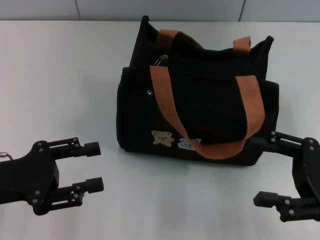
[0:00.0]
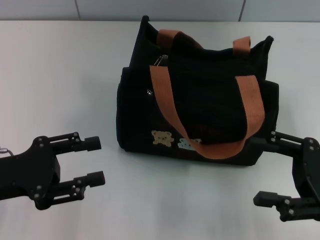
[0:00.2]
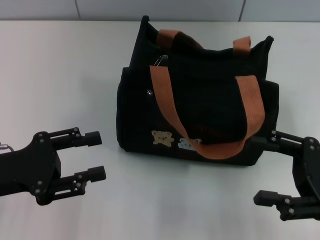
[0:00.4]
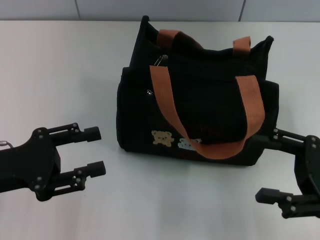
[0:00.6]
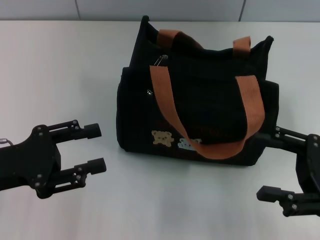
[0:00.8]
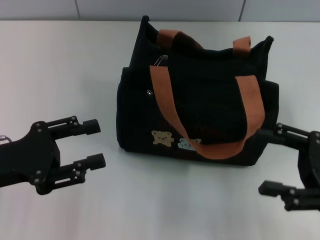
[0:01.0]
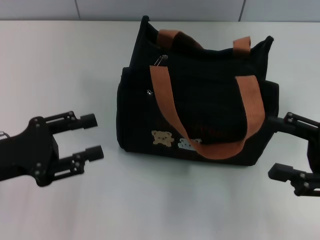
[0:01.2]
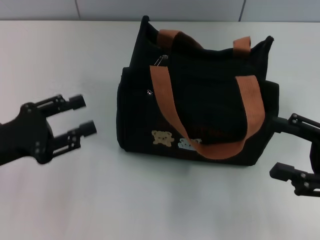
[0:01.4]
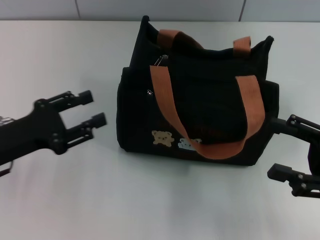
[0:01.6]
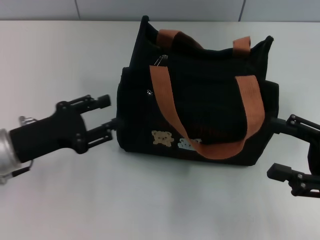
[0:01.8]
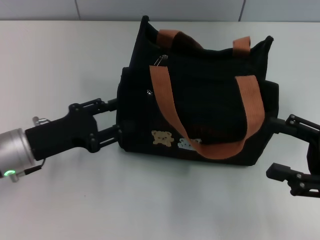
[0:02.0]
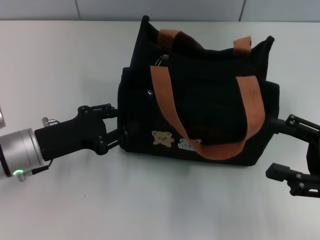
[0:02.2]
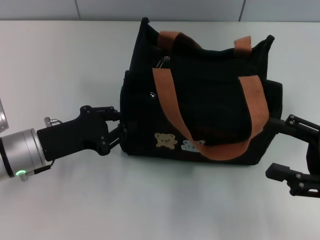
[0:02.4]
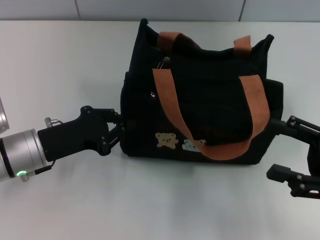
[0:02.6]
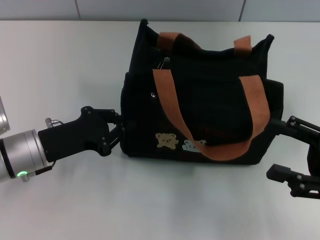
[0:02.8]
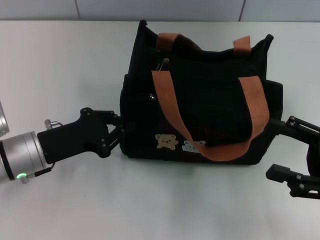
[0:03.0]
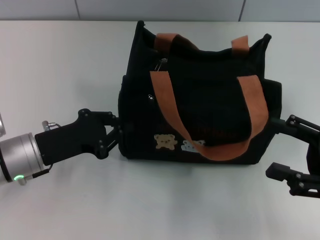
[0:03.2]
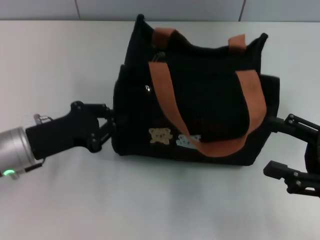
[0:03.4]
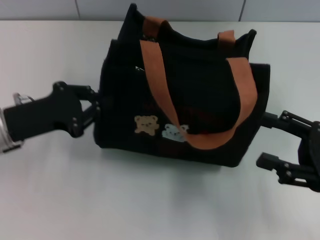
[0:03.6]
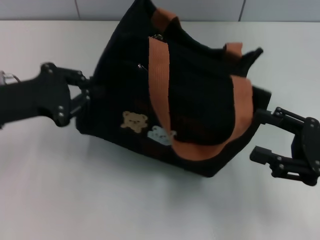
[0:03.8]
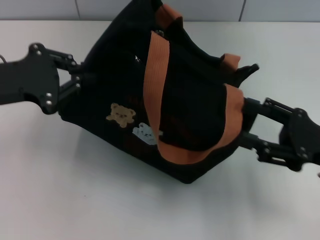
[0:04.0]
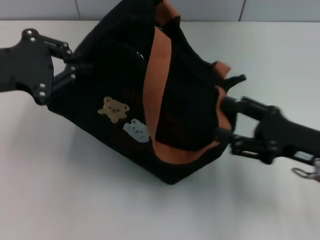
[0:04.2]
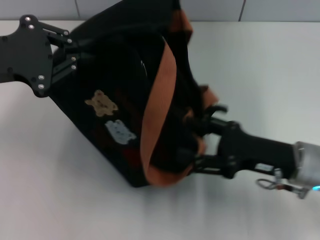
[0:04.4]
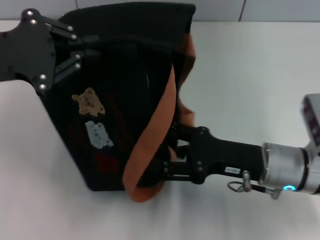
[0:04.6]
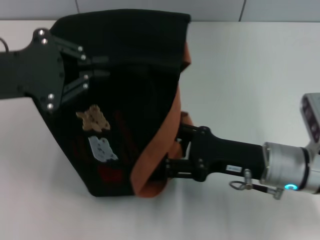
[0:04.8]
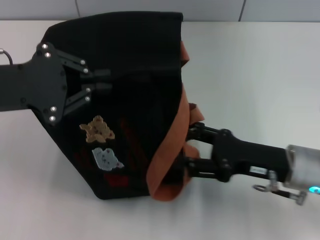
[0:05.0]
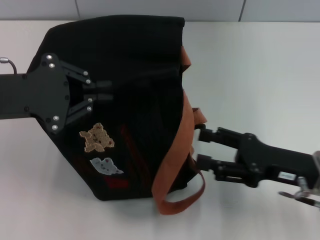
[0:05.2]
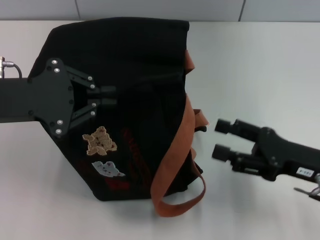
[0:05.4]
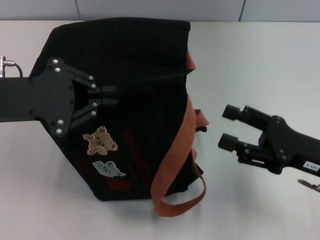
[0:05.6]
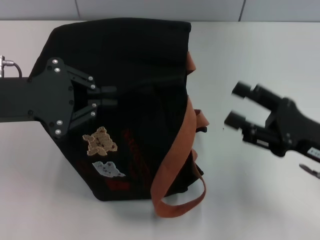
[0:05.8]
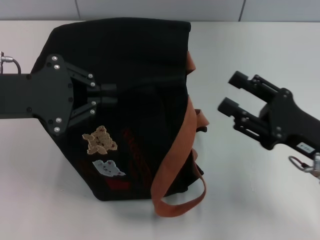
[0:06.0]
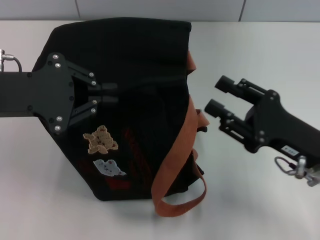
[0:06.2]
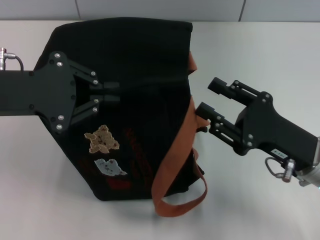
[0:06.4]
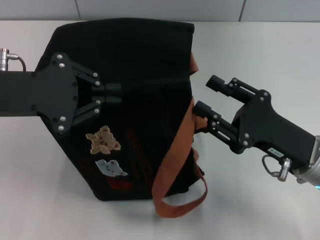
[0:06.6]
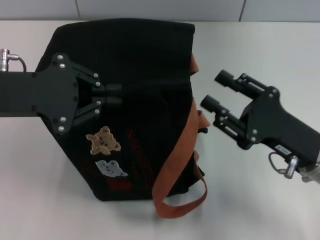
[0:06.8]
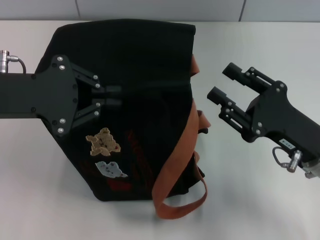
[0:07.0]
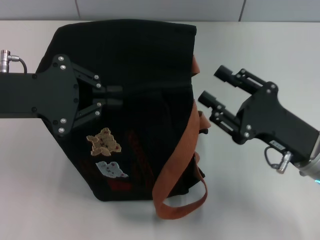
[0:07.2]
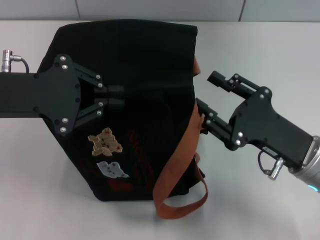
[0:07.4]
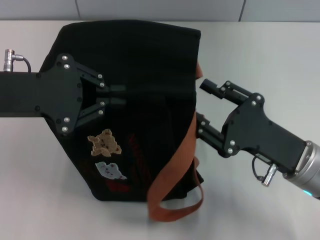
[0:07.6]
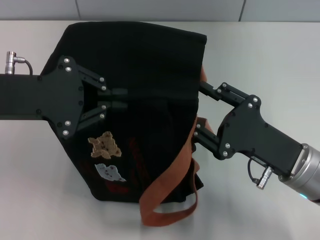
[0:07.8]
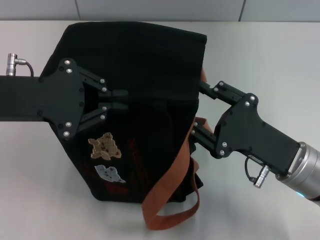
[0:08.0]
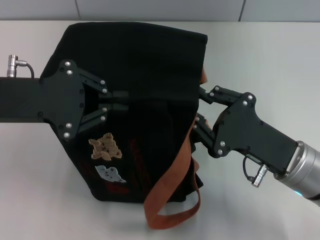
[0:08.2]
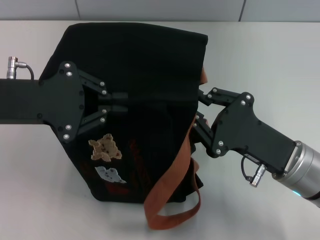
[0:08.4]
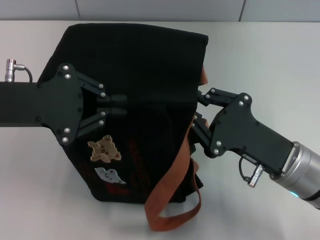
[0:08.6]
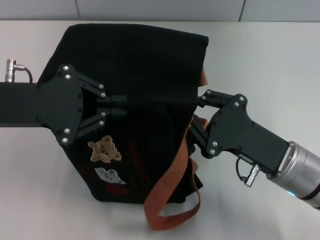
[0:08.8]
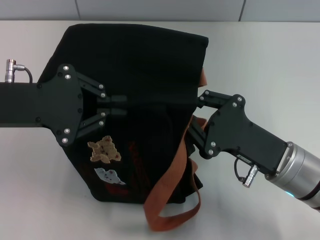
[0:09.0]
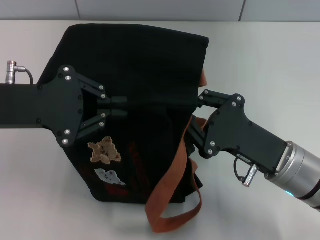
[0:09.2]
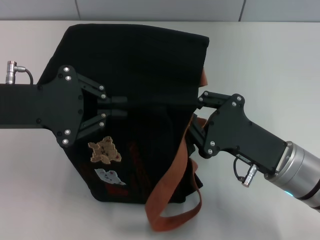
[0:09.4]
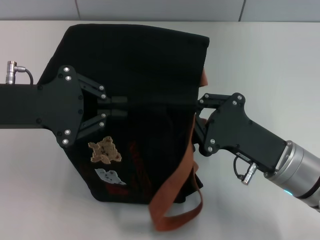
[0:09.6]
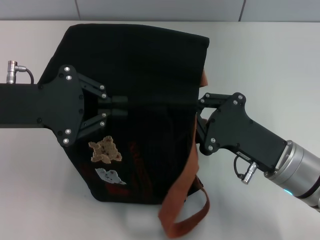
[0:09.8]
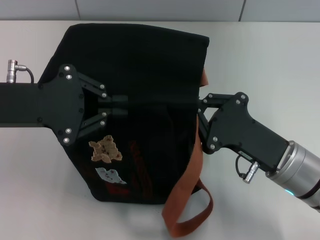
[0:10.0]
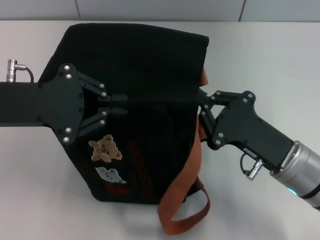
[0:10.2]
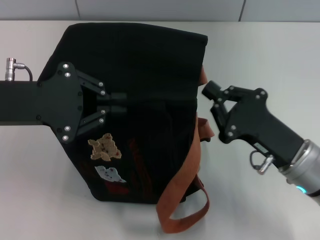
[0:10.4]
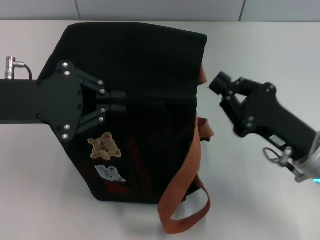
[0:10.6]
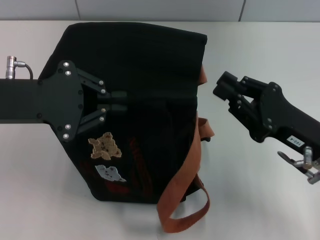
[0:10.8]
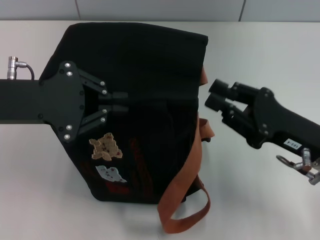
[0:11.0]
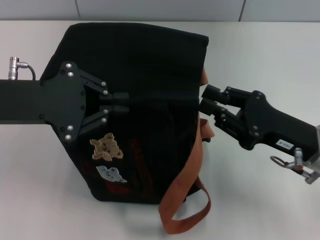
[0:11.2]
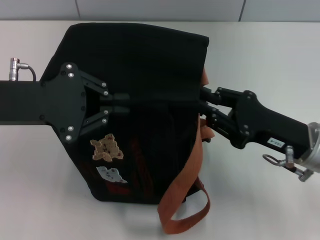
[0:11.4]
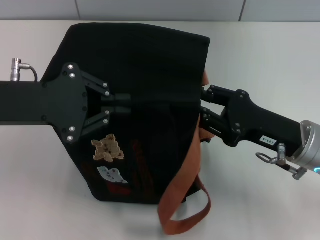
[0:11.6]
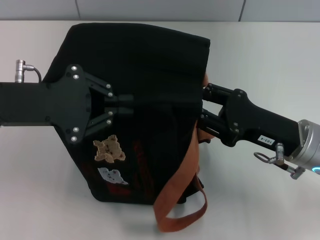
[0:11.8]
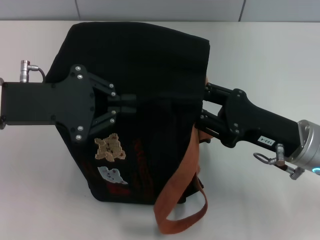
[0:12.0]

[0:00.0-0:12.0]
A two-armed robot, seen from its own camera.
0:00.0 to 0:01.6: There are only small adjustments of the grippers.
0:01.6 to 0:03.0: The left gripper changes place by roughly 5 cm, and closes up.
0:03.0 to 0:04.4: The right gripper is displaced to the left by about 10 cm; the left gripper goes some 15 cm upward.
0:07.6 to 0:09.0: The right gripper closes its fingers.
0:09.0 to 0:10.4: The grippers stay close to where they were, moving slightly.
0:10.4 to 0:12.0: The right gripper opens its fingers.

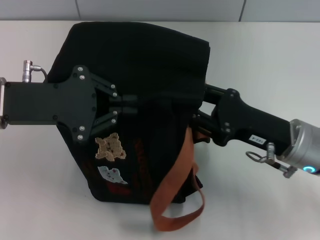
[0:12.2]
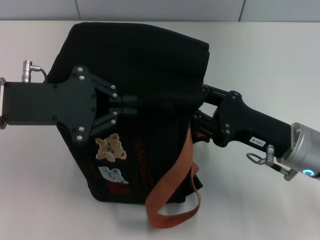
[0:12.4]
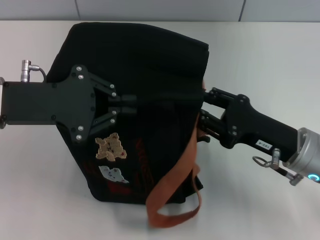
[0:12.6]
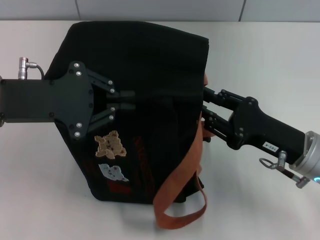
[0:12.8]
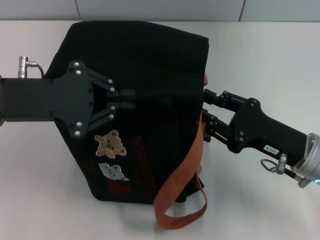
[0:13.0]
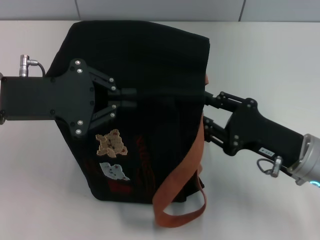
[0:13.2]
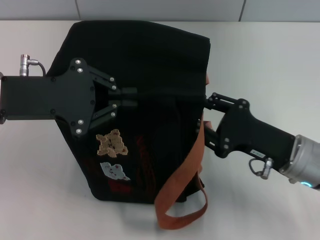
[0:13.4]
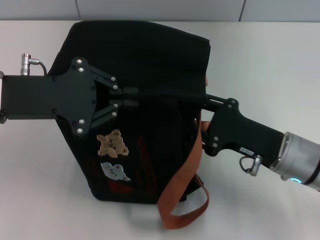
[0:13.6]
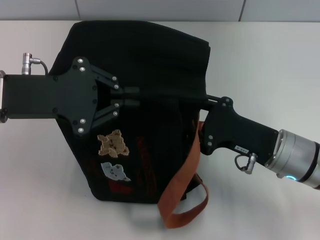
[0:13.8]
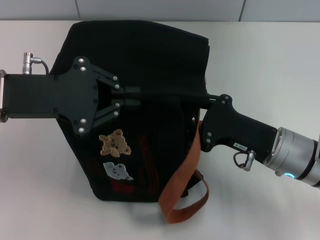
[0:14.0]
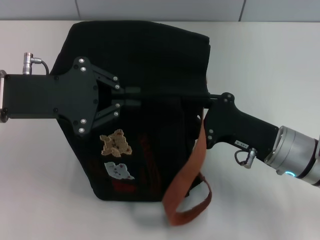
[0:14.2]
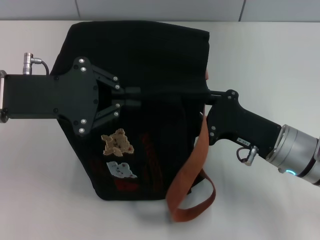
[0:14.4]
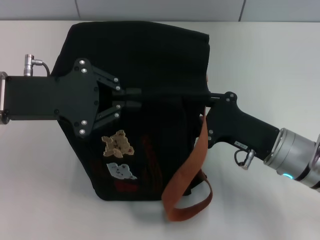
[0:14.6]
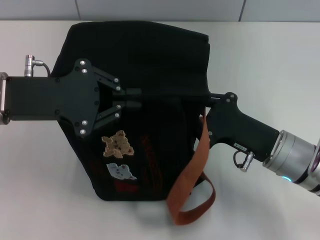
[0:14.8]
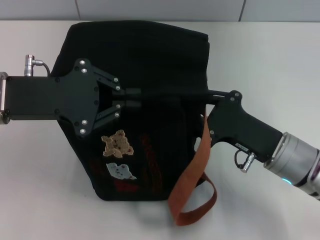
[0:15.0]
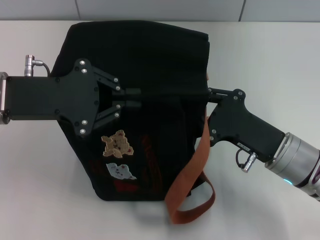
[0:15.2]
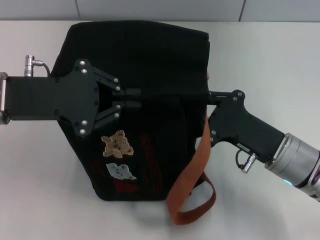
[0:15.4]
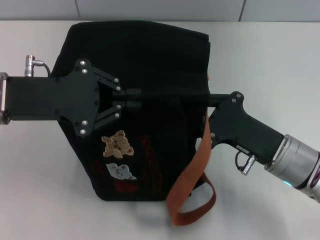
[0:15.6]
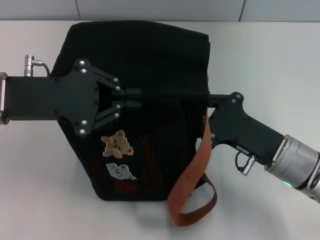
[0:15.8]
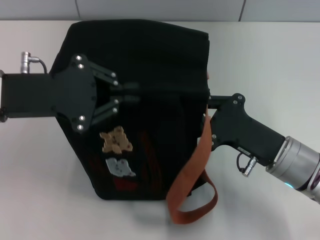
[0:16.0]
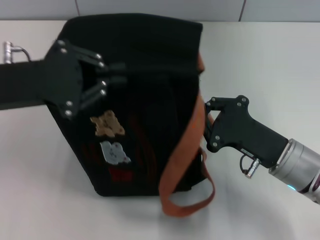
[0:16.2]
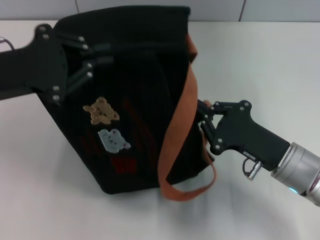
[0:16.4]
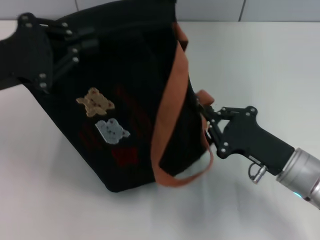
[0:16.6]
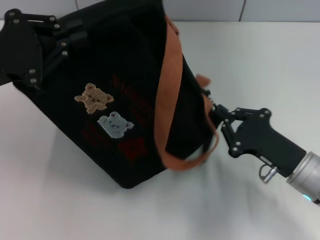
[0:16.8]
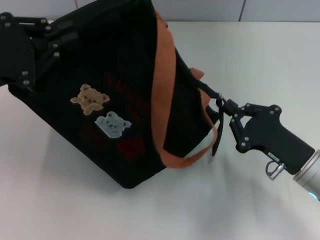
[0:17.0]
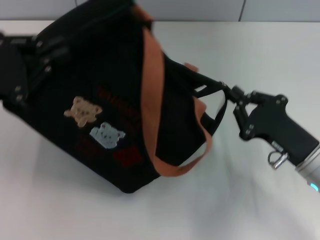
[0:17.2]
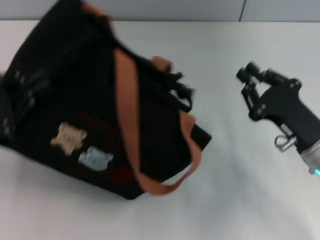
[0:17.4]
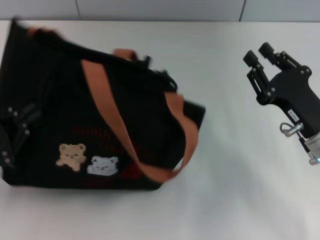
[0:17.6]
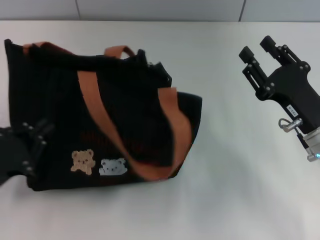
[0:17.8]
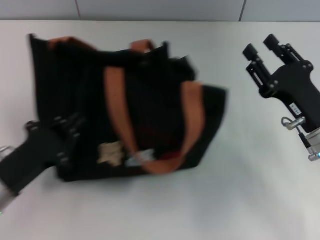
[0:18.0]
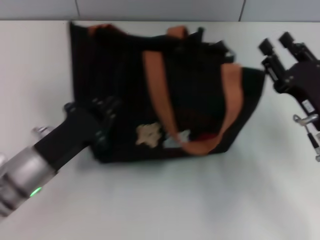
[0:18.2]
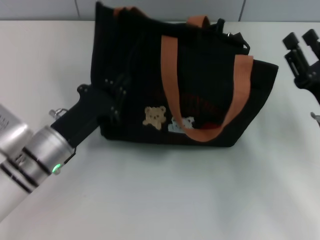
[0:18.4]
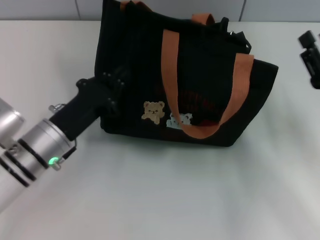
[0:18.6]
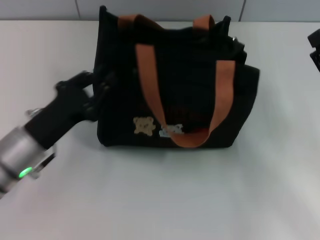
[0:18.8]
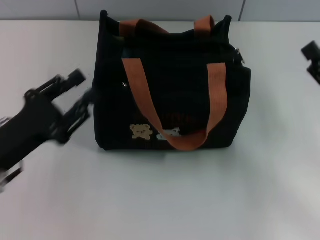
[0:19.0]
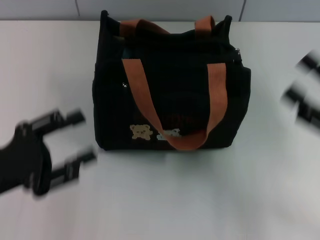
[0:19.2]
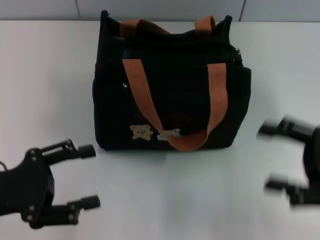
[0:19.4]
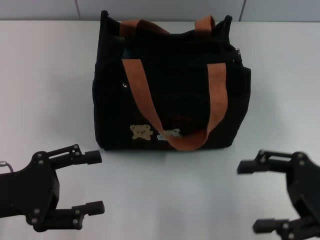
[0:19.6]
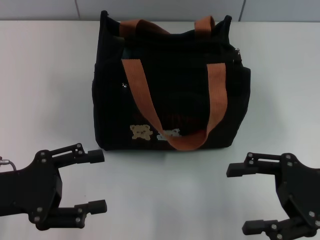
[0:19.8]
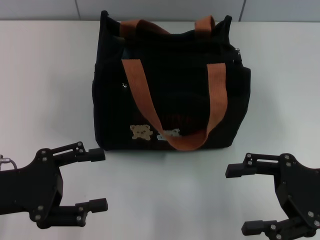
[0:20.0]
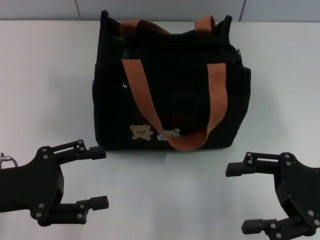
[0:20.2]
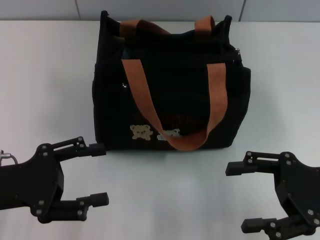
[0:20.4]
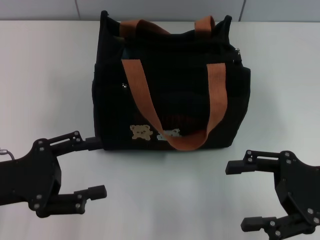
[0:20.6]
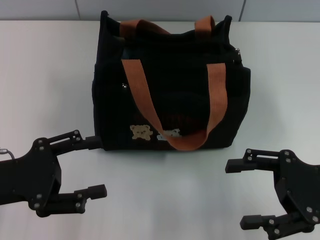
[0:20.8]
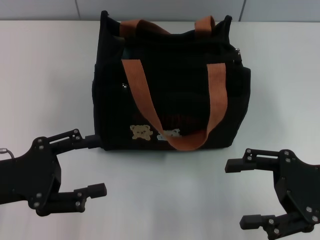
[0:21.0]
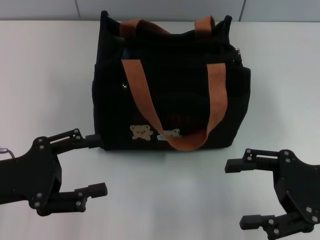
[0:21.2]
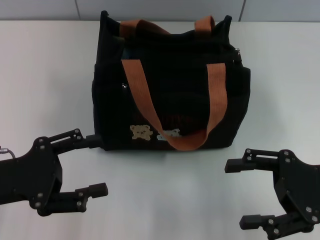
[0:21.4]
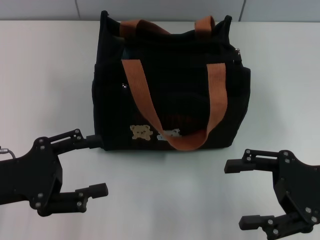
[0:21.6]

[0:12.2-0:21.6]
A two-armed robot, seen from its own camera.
Step, 0:12.2 to 0:17.4: Pull open the zipper with your right hand.
Step, 0:17.6 to 0:19.0: Grab the bag with your left hand.
0:12.2 to 0:13.8: There are only small adjustments of the grippers.
0:13.8 to 0:15.4: The right gripper closes its fingers.
0:15.4 to 0:17.0: The right gripper shifts by approximately 5 cm; the left gripper travels to the left by some 5 cm.
0:17.0 to 0:18.4: The right gripper opens up. The left gripper moves downward and to the right, approximately 15 cm.
0:18.4 to 0:20.0: The right gripper shifts by about 5 cm, while the left gripper moves to the left, backward and upward, some 15 cm, and opens.
0:20.0 to 0:21.6: Both grippers stay about where they are.

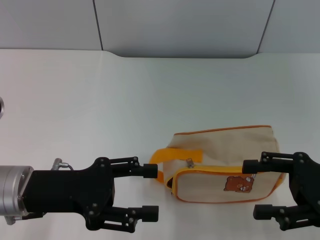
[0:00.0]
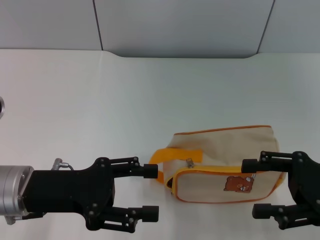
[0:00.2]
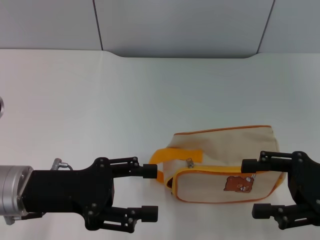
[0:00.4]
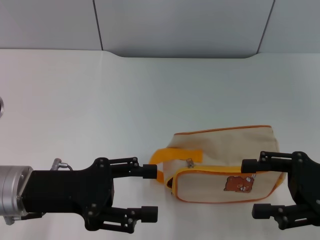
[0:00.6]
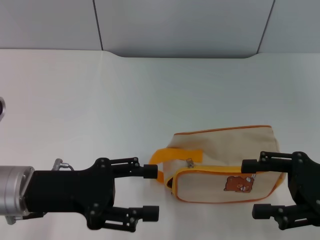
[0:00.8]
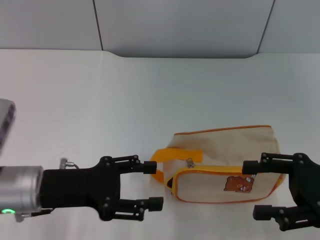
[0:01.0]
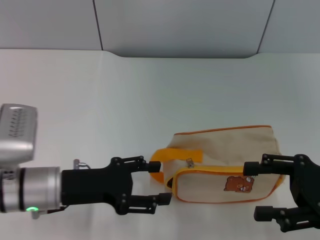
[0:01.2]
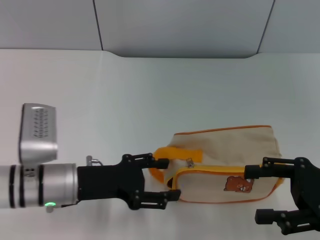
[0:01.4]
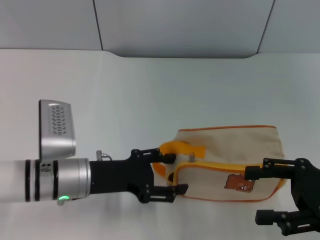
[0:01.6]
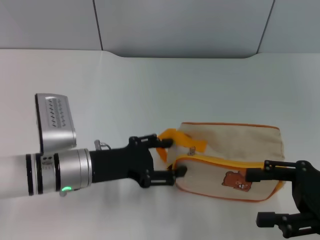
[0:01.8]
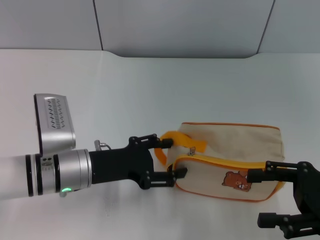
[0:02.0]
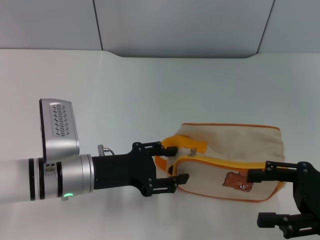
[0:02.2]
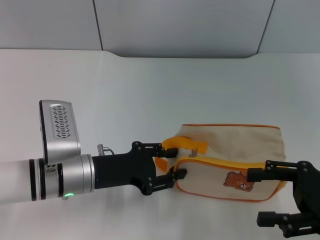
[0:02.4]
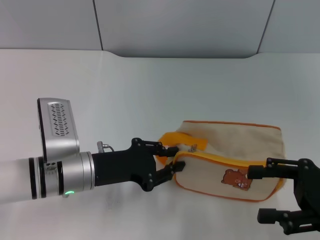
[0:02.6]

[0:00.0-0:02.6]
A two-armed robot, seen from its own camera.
0:00.0 to 0:01.2: There are only small adjustments of the grippers.
0:01.2 to 0:02.6: The left gripper shifts by roughly 5 cm.
